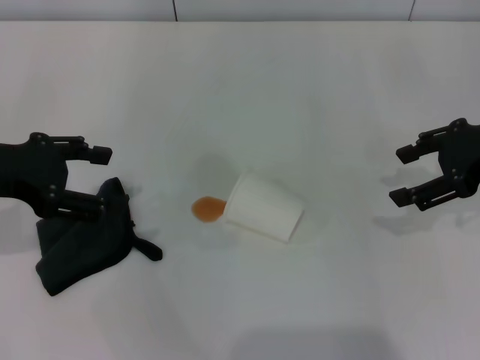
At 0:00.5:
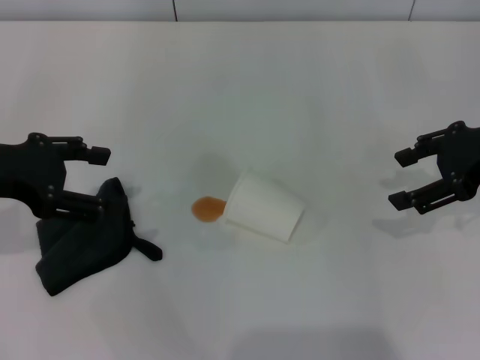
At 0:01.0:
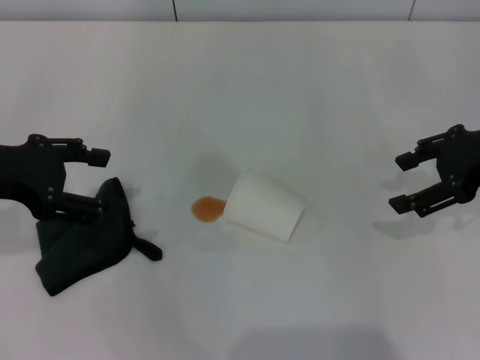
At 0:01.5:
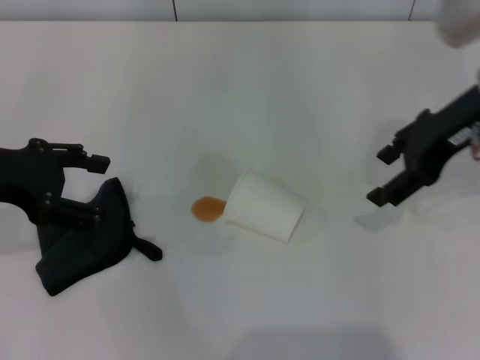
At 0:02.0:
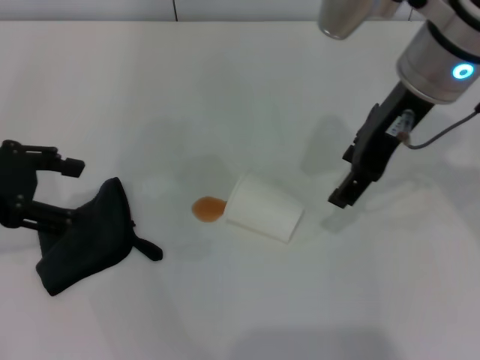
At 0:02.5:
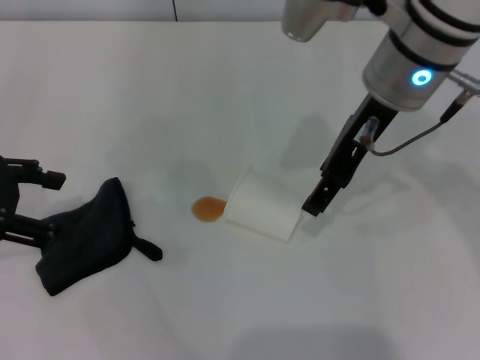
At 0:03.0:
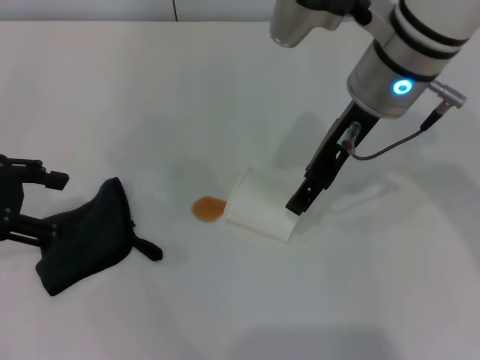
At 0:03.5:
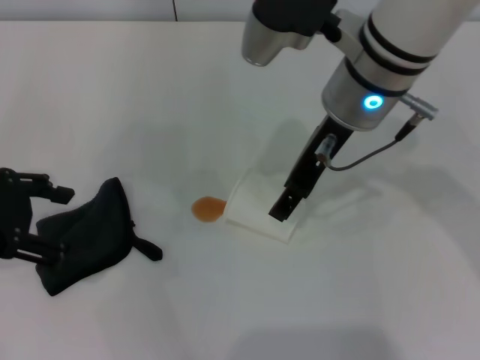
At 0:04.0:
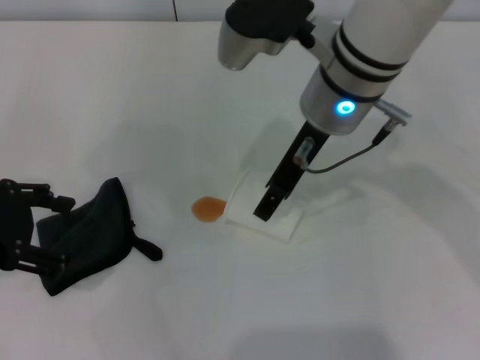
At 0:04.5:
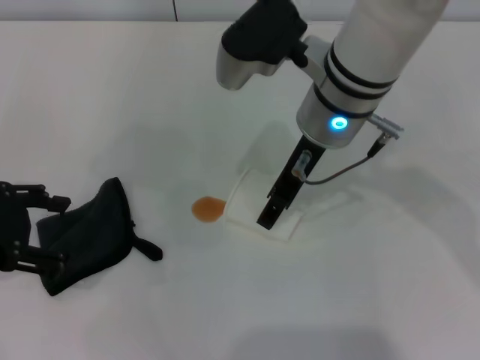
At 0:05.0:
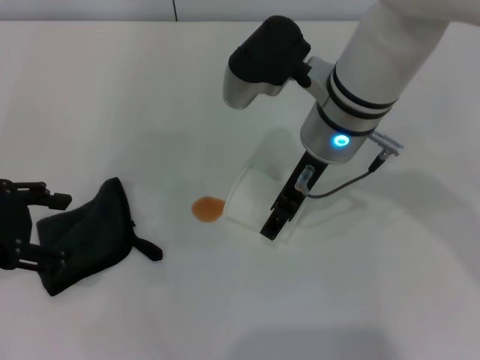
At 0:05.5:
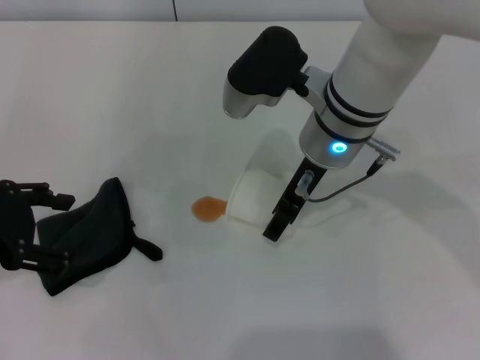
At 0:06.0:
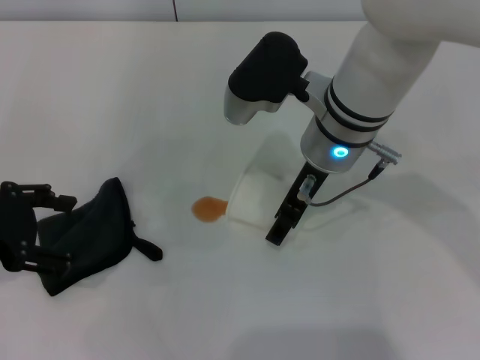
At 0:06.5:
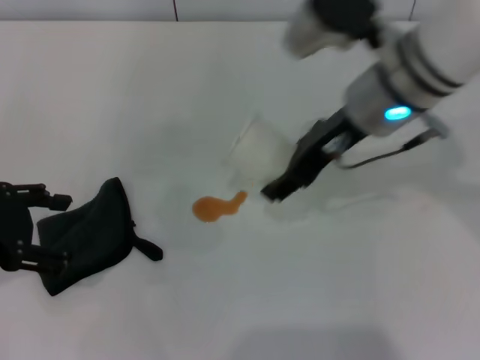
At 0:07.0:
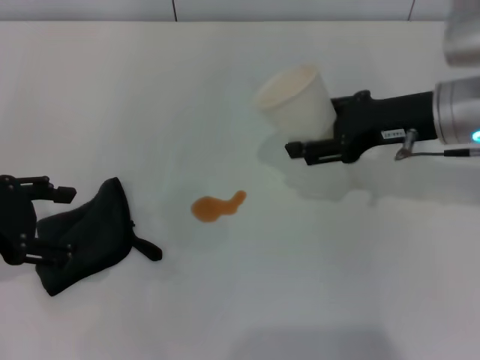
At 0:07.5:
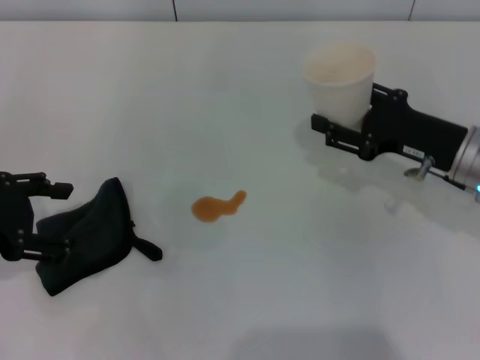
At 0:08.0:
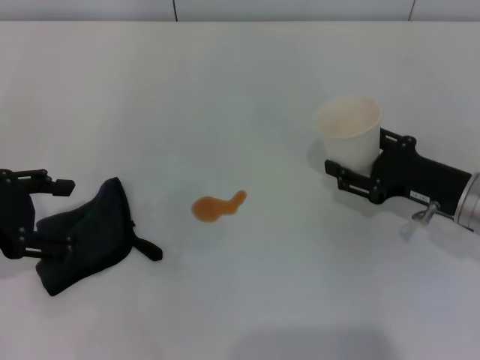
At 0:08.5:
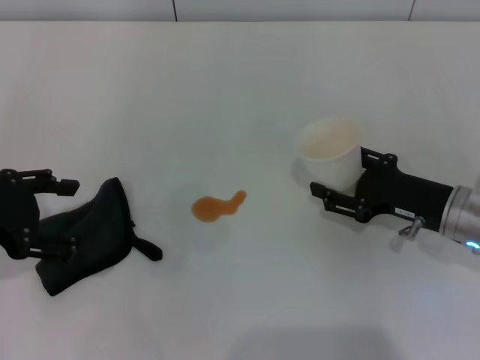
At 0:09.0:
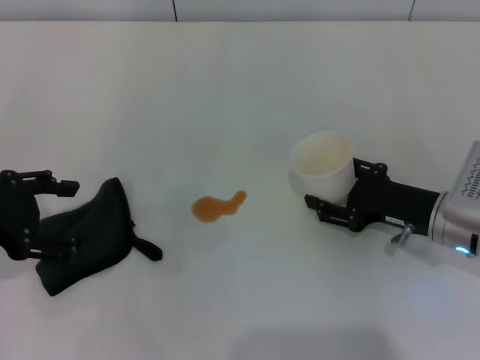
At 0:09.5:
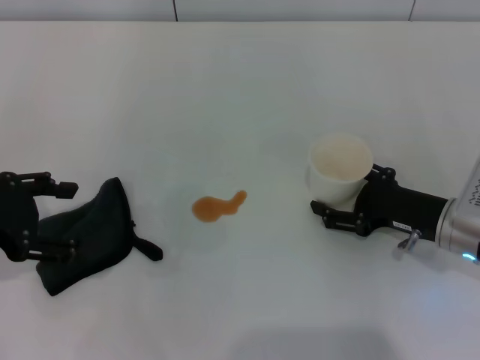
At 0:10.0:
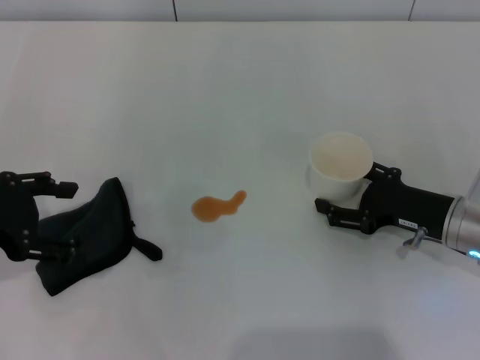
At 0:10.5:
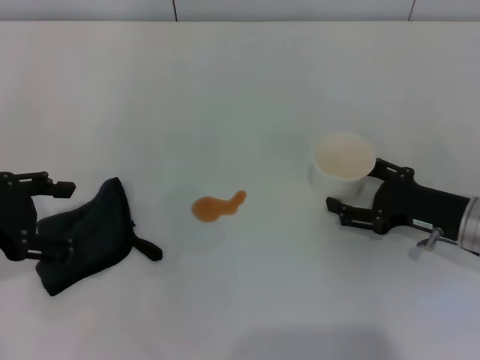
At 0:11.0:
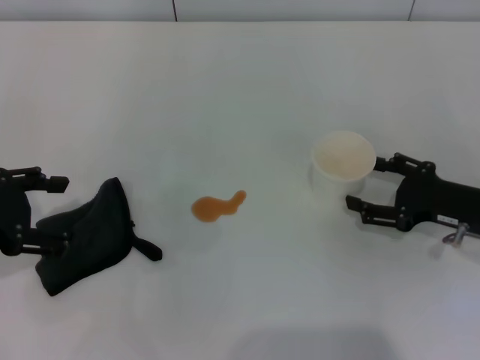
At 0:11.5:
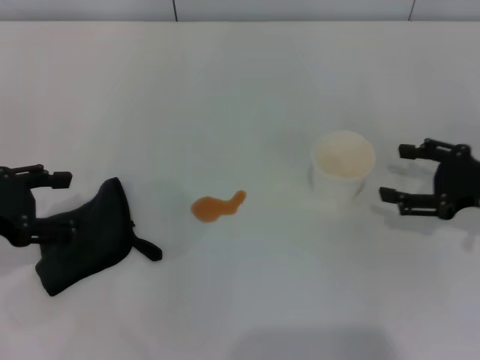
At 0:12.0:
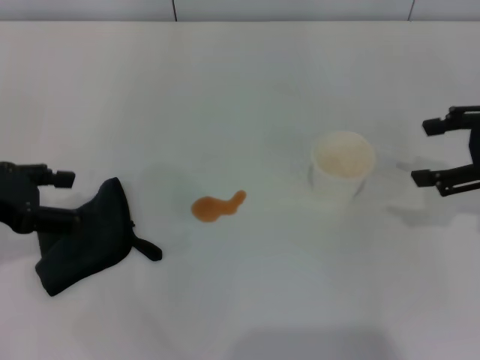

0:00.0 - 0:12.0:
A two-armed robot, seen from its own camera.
Step, 0:00.0 - 0:05.5: Grasp the paper cup with the right gripper.
Step, 0:06.0 - 0:10.5: Stand the paper cup upright with the right gripper.
0:00.0 - 0:02.0: The right gripper heads to the left, covering roughly 15 cm.
0:02.0 - 0:04.0: The right gripper travels to the left by roughly 5 cm.
0:04.0 - 0:06.0: The right gripper travels downward by some 5 cm.
0:06.0 - 0:08.0: The right gripper shifts about 20 cm to the right and downward, and closes up.
0:08.0 - 0:10.0: The right gripper opens up.
0:10.0 - 0:12.0: The right gripper heads upward and to the right, covering roughly 20 cm.

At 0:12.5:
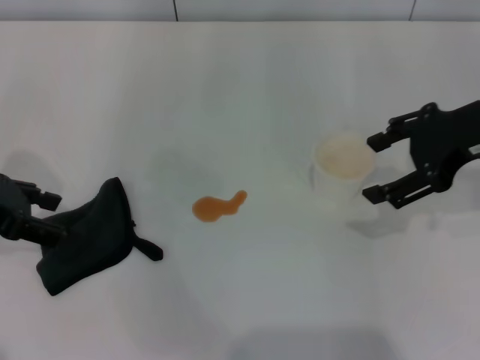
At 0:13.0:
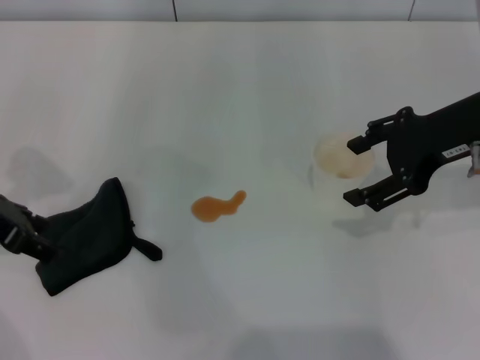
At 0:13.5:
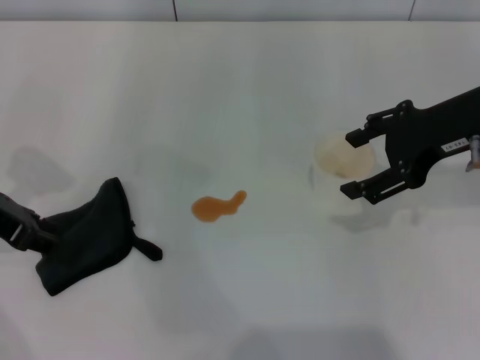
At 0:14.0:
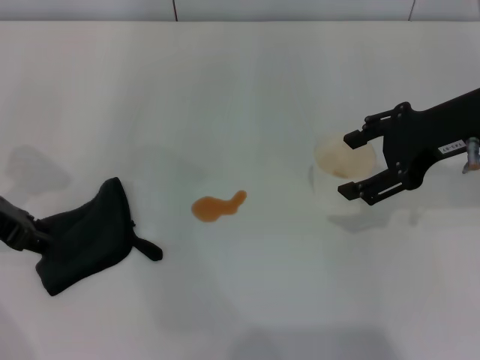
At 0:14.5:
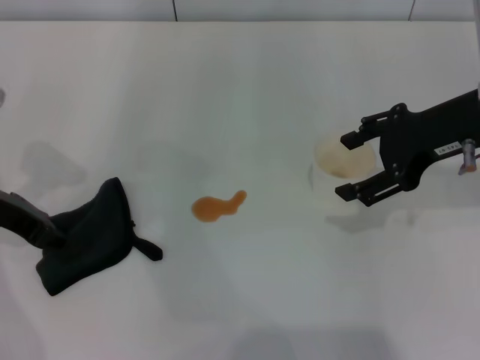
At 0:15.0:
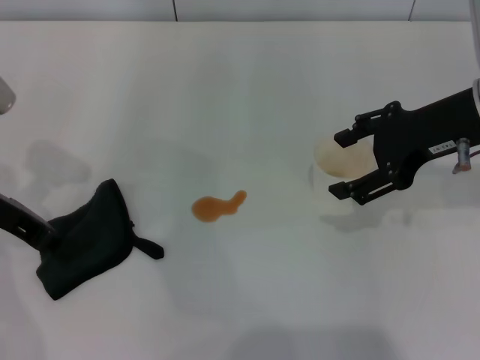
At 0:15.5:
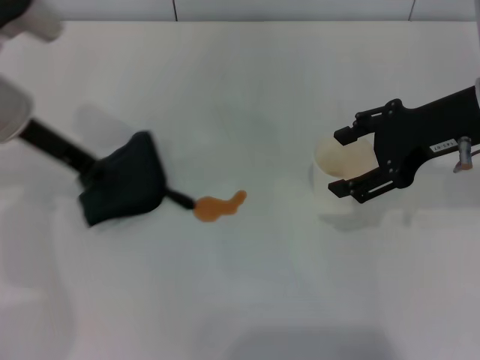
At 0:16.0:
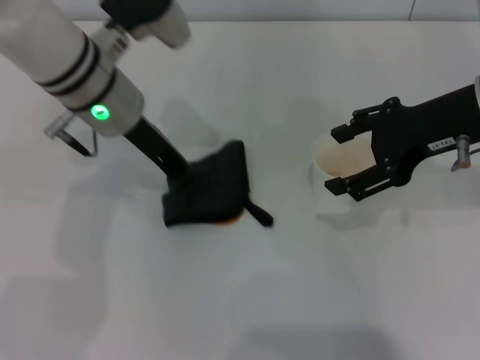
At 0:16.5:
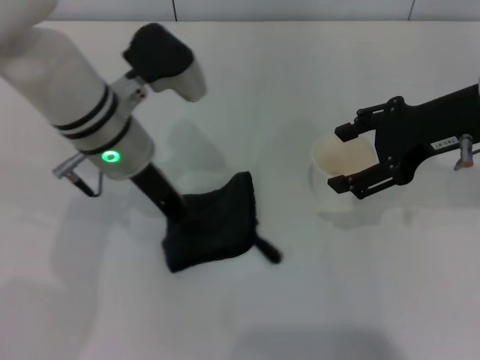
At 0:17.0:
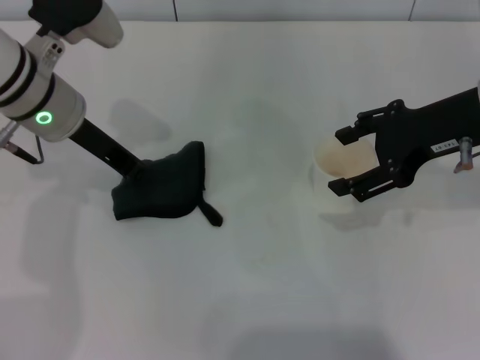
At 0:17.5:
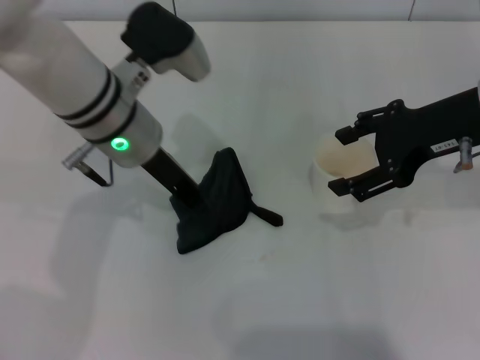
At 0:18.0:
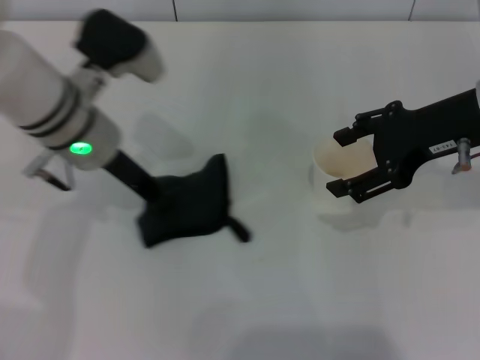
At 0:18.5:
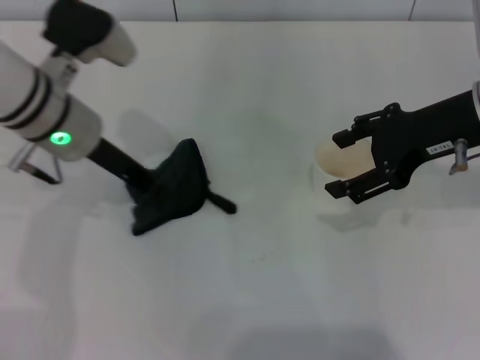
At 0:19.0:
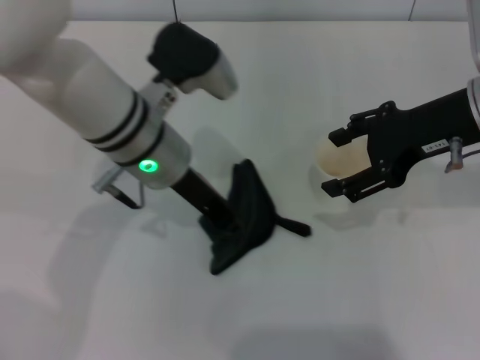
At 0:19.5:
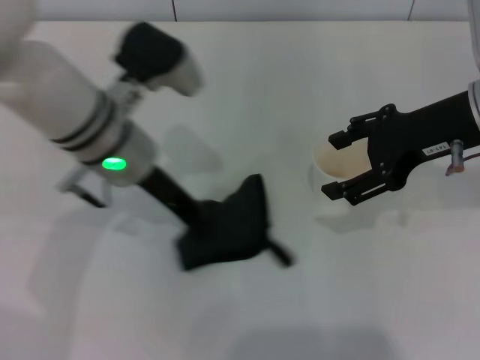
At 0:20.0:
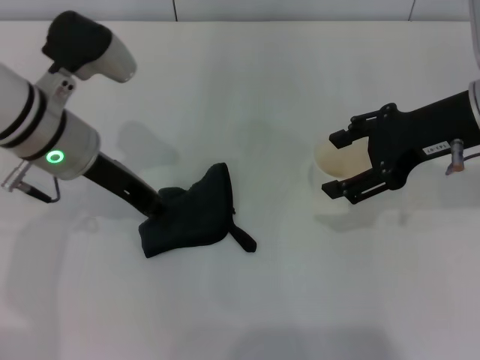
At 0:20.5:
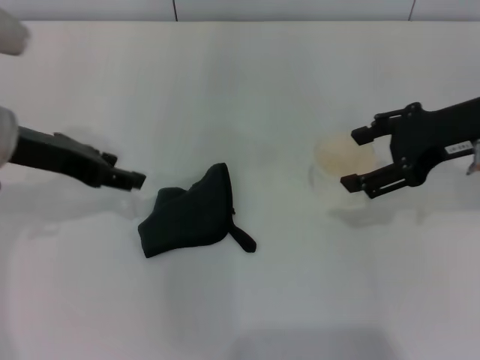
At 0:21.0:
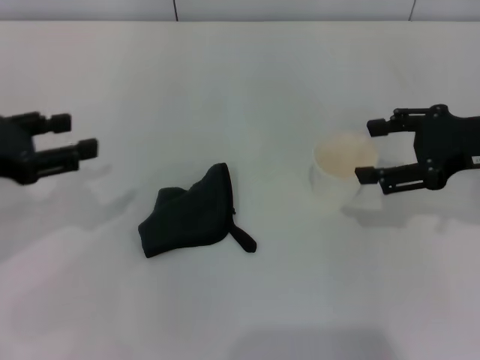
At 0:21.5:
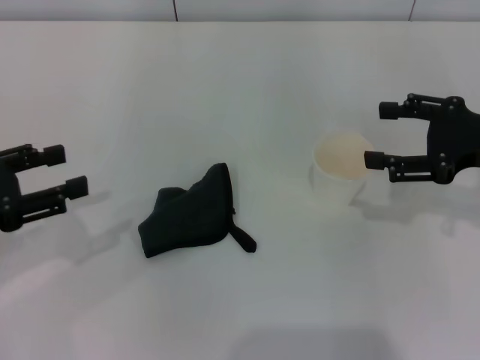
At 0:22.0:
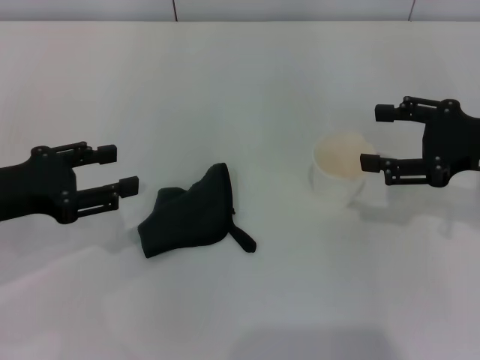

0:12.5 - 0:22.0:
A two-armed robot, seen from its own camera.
Step, 0:12.5 - 0:14.5: Grasp the rag with the left gripper.
Step, 0:15.0 - 0:19.5: Wipe the stains off the table with the left gripper.
Step, 0:20.0 - 0:20.5: Place the rag on the table with the left gripper.
0:12.5 - 0:14.5: The left gripper closes its fingers.
0:14.5 - 0:16.5: The left gripper moves to the right, approximately 15 cm, and closes up.
0:16.5 - 0:18.0: The left gripper goes left and right, roughly 5 cm each way, reversing 2 times.
0:18.0 - 0:20.0: The left gripper moves approximately 5 cm to the right and comes back.
0:20.0 - 0:22.0: The left gripper is displaced to the left and backward by roughly 15 cm, and opens its fingers; the right gripper moves to the right and downward, approximately 10 cm.
